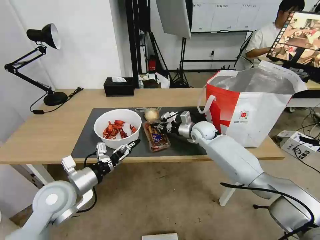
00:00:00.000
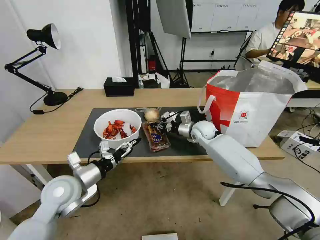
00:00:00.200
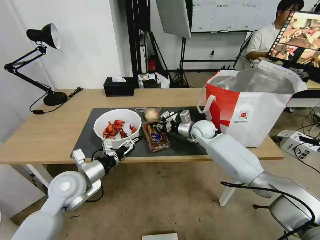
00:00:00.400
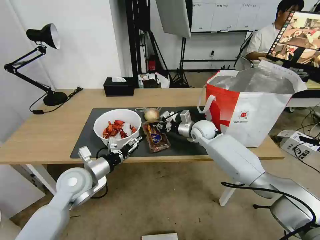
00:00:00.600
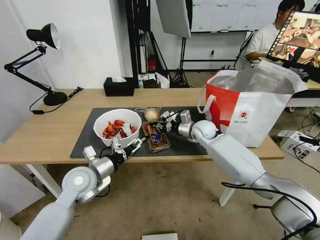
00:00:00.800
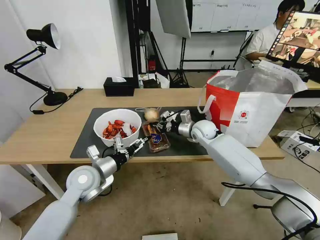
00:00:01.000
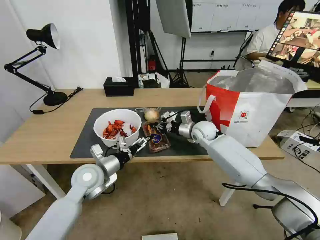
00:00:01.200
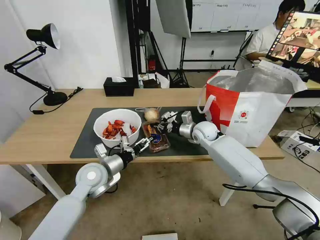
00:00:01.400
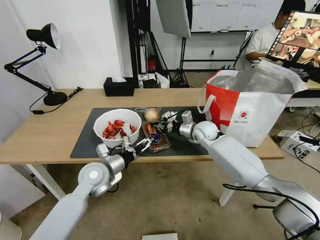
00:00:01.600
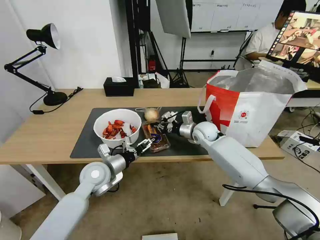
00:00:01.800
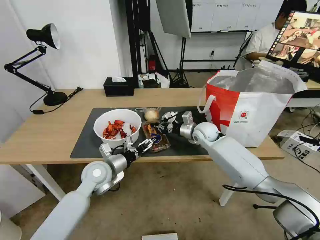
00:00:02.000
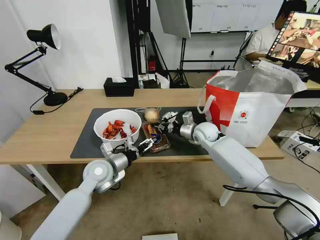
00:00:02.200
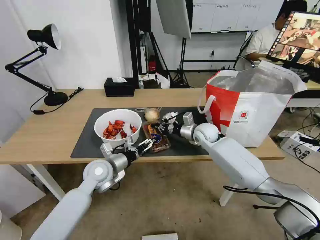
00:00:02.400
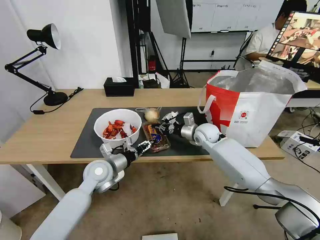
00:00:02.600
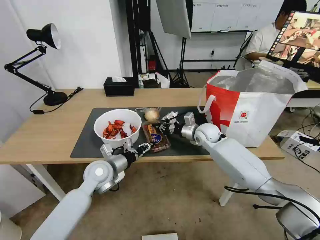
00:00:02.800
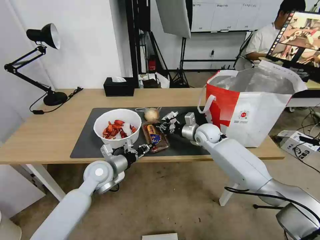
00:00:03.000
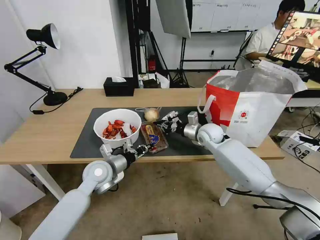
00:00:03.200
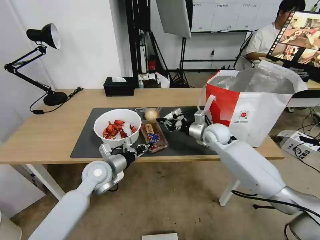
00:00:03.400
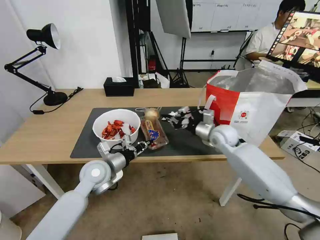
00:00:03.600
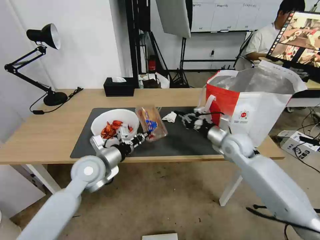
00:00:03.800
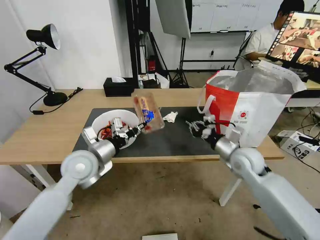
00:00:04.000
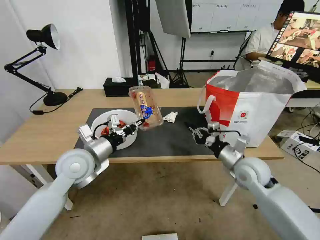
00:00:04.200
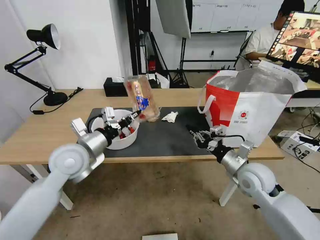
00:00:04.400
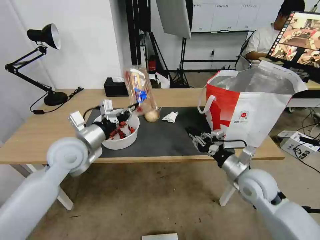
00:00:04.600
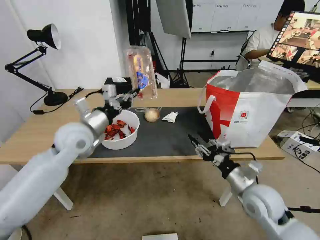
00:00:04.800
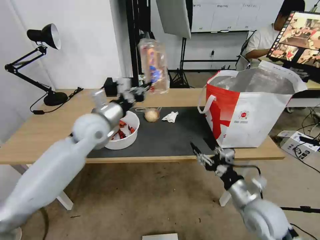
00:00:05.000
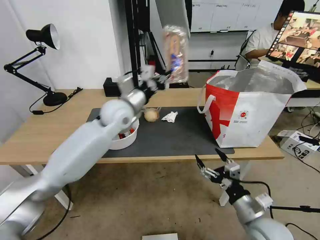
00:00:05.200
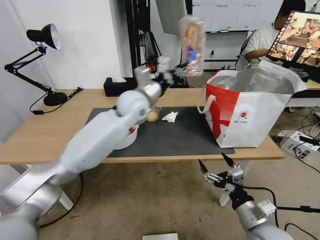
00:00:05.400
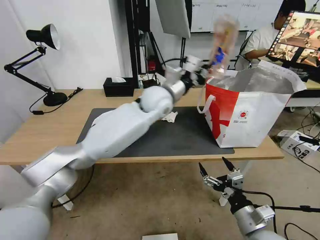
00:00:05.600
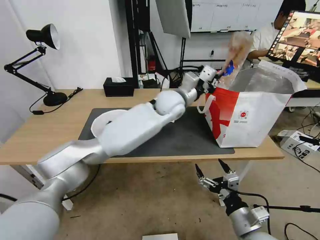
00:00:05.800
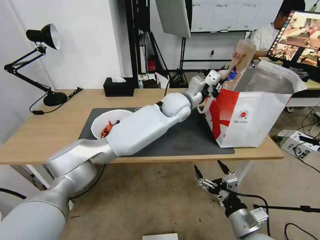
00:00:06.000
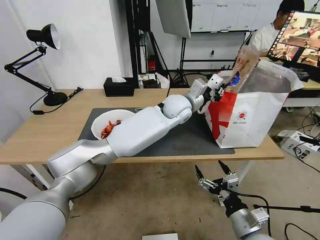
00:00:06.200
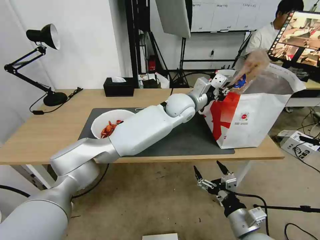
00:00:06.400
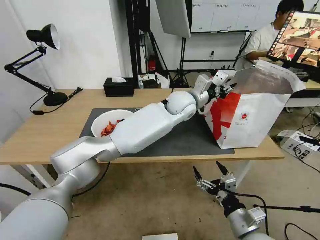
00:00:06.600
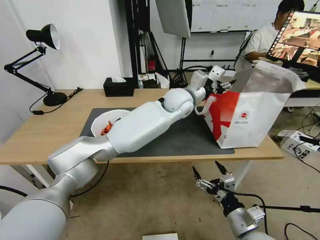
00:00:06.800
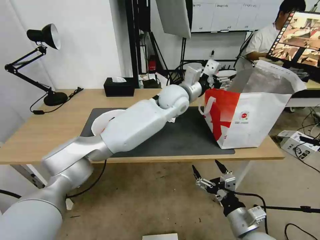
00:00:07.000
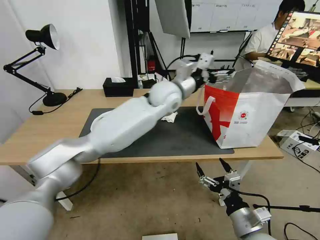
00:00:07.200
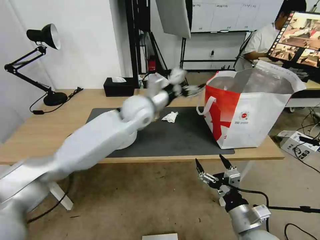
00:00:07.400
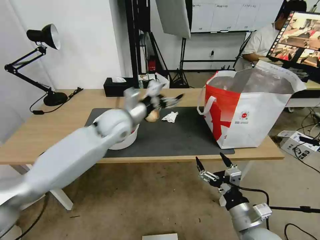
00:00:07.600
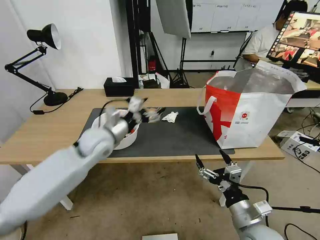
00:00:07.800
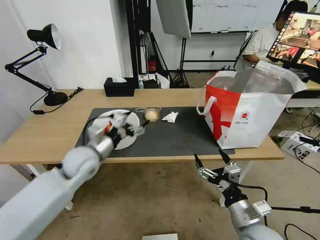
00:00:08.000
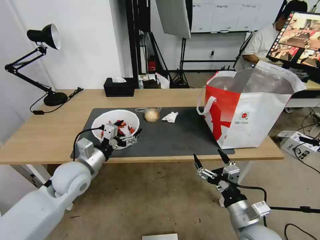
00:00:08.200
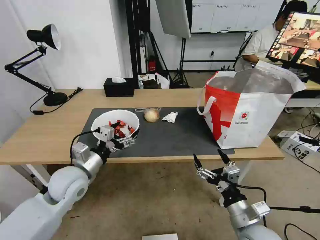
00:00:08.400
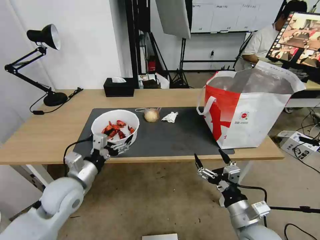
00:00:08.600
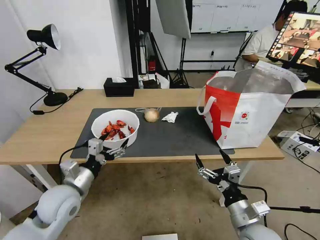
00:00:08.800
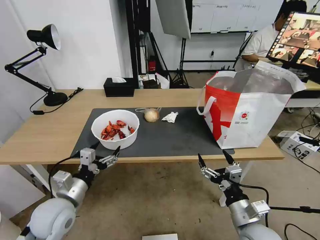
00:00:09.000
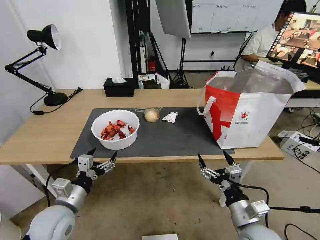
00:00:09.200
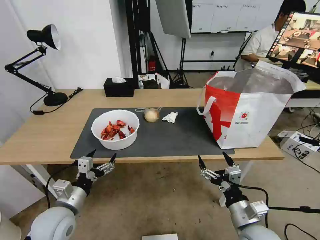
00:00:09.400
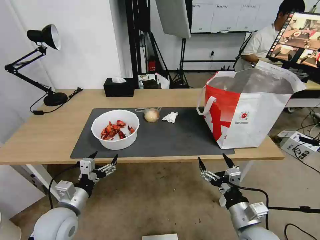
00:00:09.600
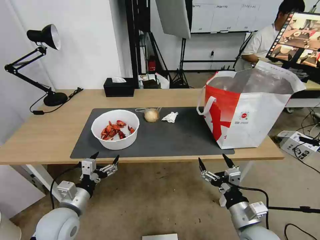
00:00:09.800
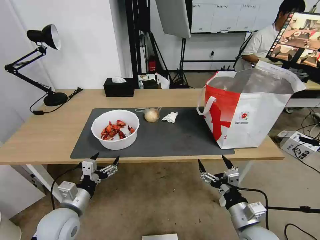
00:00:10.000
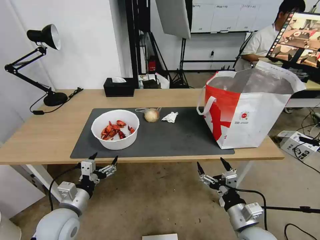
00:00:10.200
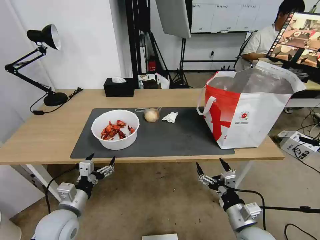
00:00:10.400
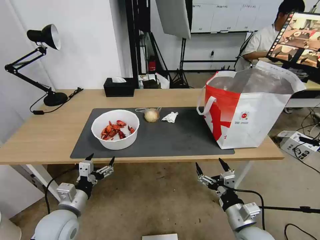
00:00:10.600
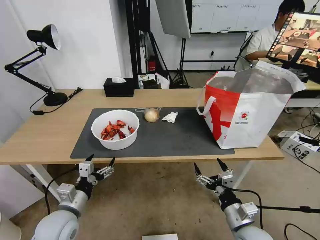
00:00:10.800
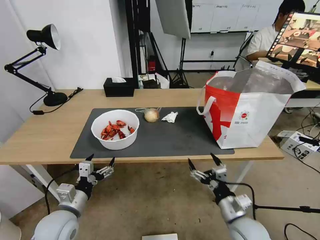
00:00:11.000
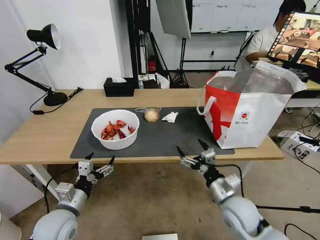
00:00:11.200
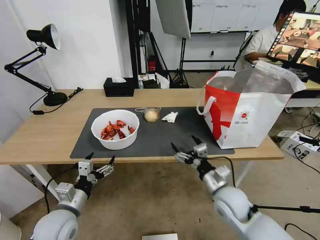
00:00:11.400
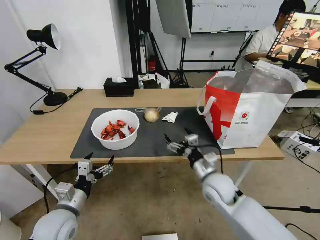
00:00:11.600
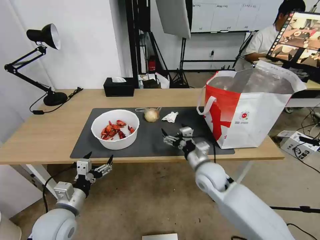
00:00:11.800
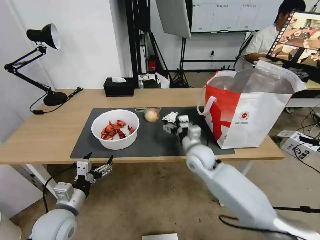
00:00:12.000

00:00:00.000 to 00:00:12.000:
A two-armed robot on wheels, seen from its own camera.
Task of the whole recording: Pick up the trash from the table and place it into the takeout bag.
00:00:00.000 to 00:00:01.600: The left gripper moves forward and to the right, roughly 10 cm.
00:00:01.600 to 00:00:03.000: The left gripper closes.
00:00:03.000 to 00:00:04.400: The left gripper goes some 10 cm upward. The right gripper goes roughly 20 cm backward and to the right.
00:00:04.400 to 00:00:06.000: The right gripper is displaced backward by approximately 20 cm, and opens; the left gripper goes some 35 cm to the right and forward.
00:00:06.000 to 00:00:07.600: The left gripper goes about 20 cm to the left, and opens its fingers.
00:00:07.600 to 00:00:09.000: The left gripper moves backward, to the left and downward, roughly 30 cm.
00:00:09.000 to 00:00:10.400: The grippers move only a little.
00:00:10.400 to 00:00:12.000: The right gripper travels forward and to the left by approximately 25 cm.

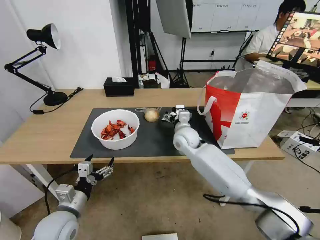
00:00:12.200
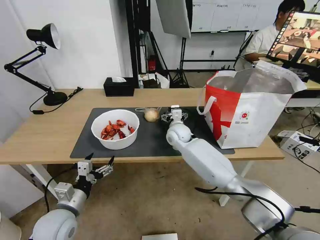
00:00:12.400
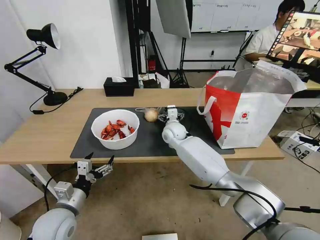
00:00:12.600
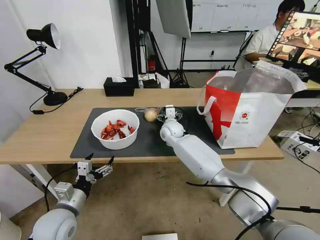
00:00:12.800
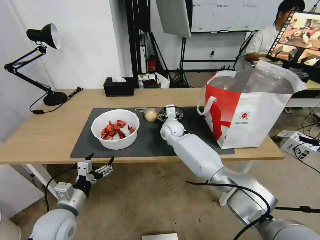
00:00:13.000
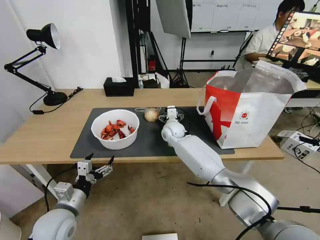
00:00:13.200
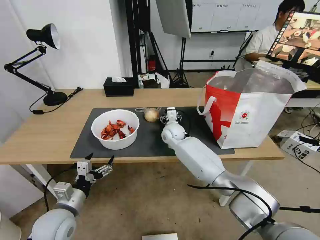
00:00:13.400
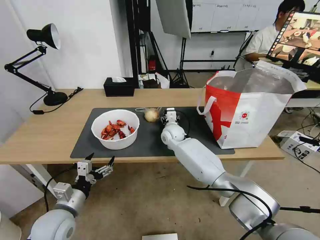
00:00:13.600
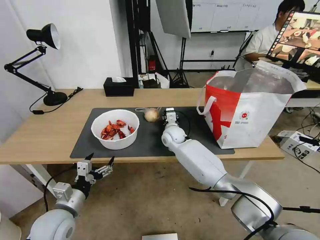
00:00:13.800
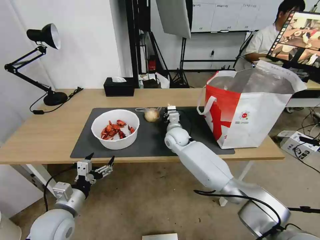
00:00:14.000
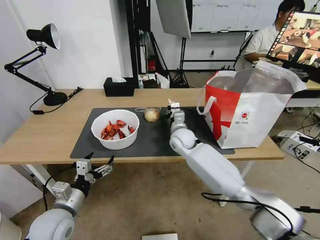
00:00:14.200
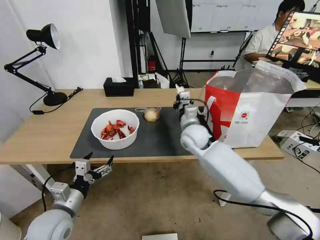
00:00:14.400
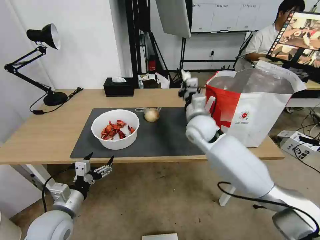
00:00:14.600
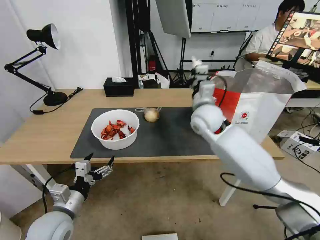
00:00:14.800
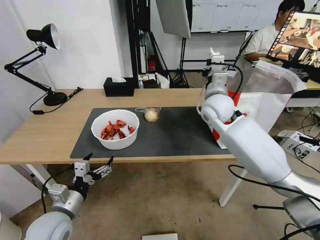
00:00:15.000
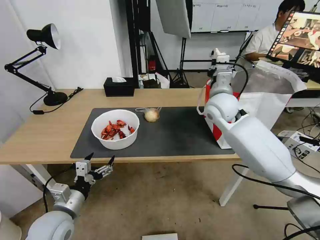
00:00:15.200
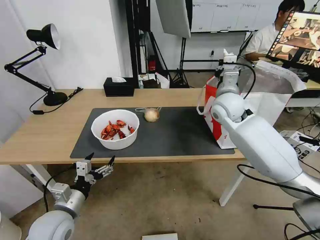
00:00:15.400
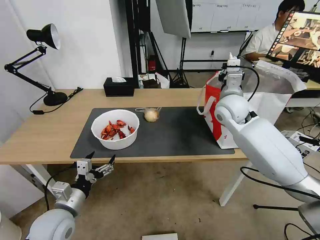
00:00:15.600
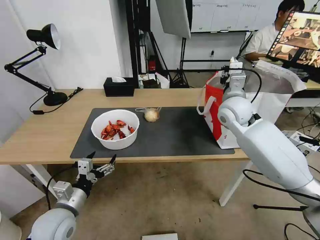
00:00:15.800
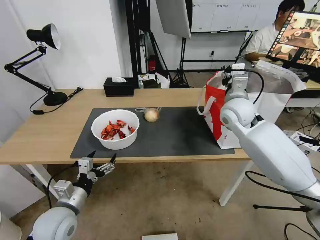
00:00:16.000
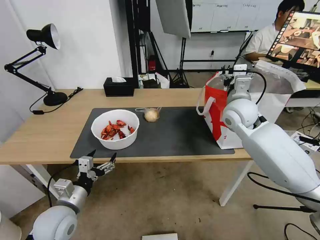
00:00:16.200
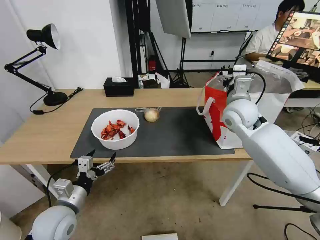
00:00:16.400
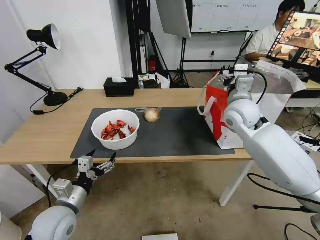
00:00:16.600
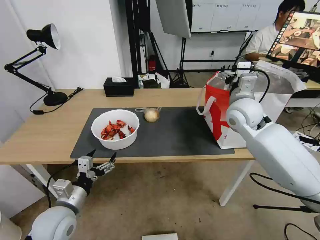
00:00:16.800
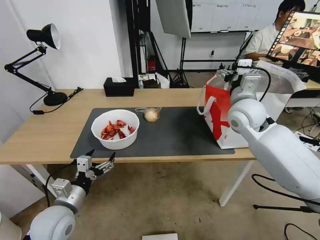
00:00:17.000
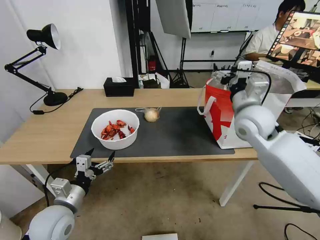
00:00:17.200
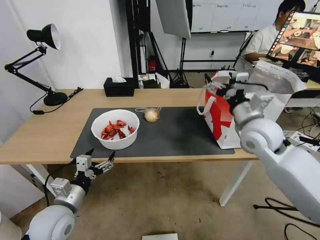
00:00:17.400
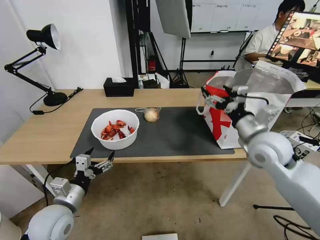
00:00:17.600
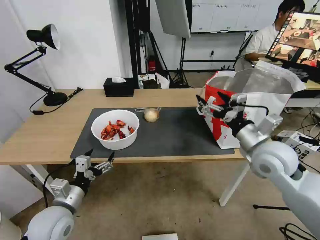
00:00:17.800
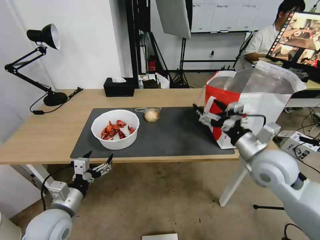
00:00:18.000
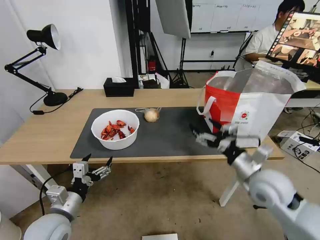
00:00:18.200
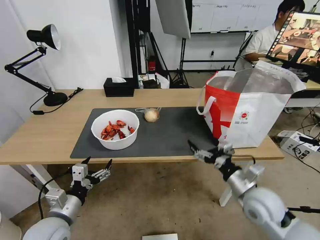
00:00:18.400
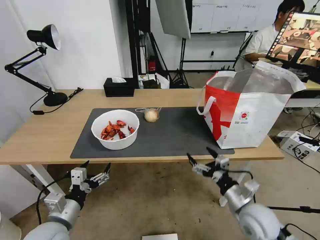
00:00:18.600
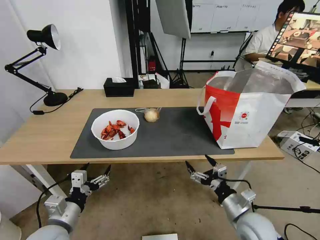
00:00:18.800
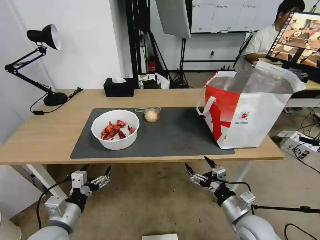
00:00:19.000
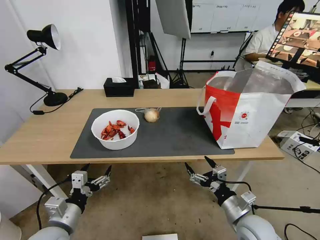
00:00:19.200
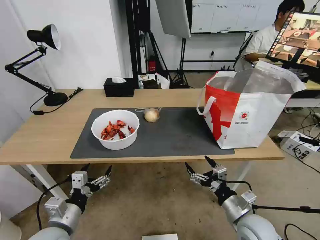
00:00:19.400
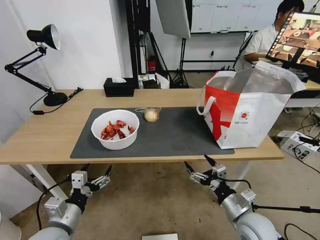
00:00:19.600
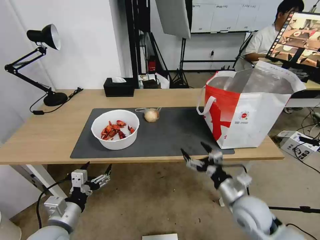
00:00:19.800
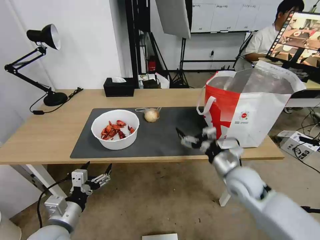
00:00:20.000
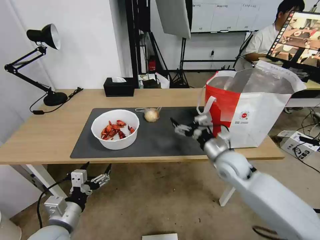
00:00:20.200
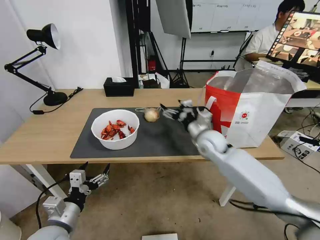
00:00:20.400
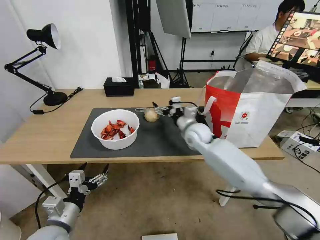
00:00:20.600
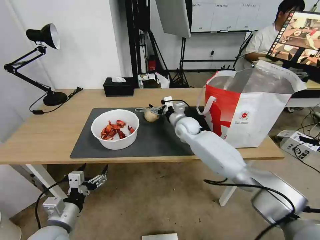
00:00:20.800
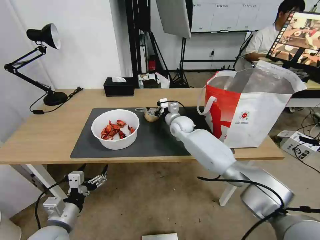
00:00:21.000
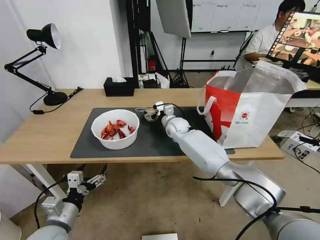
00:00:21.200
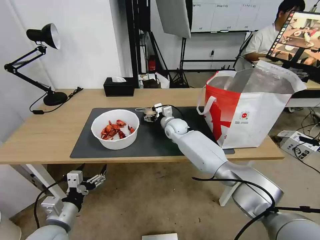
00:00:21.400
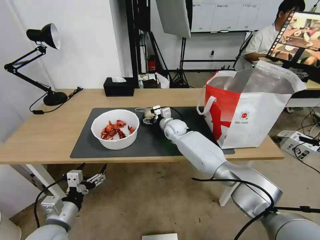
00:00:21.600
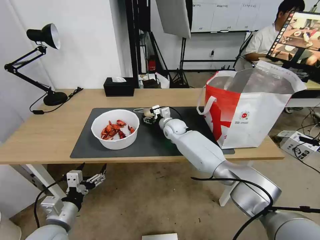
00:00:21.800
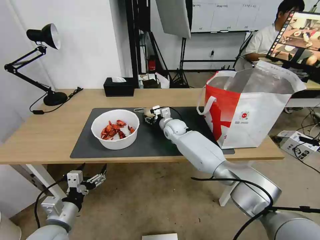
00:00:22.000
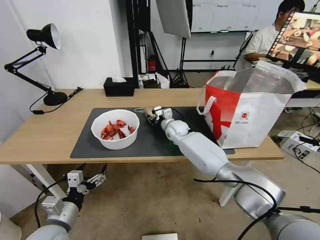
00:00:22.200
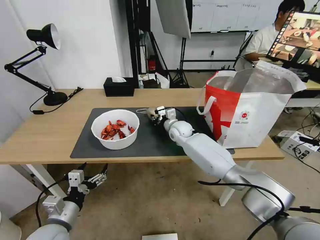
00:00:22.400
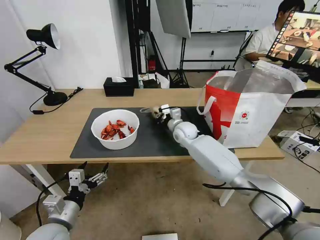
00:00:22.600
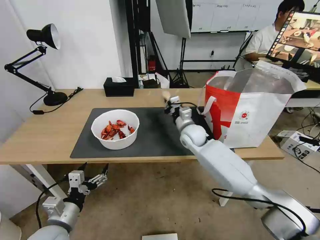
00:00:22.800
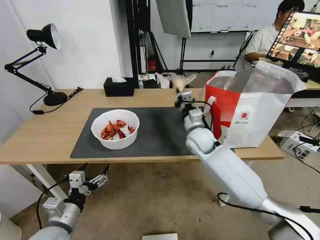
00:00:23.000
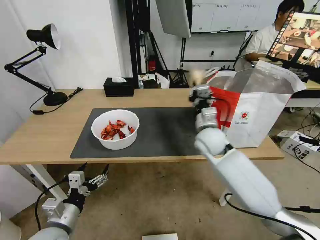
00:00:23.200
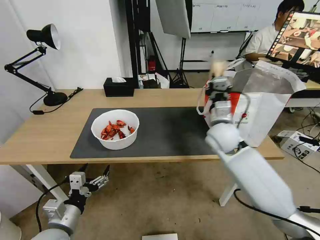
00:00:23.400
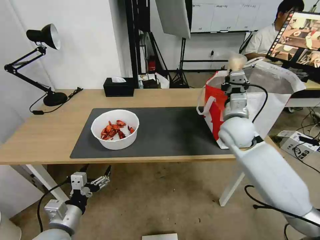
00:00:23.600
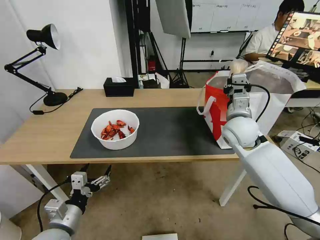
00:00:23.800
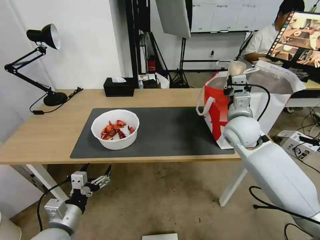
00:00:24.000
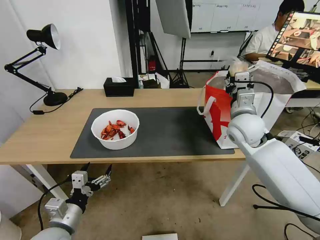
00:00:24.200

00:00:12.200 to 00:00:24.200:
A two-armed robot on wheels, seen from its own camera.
Task of the whole recording: Pick up the trash from the table and place it into the takeout bag.
00:00:12.200 to 00:00:13.800: The right gripper shifts about 10 cm forward and to the left, and closes up.
00:00:13.800 to 00:00:15.200: The right gripper is displaced upward and to the right by some 25 cm, and closes up.
00:00:15.200 to 00:00:16.600: The right gripper heads to the right, covering approximately 5 cm, and opens.
00:00:16.600 to 00:00:18.200: The right gripper heads backward and downward, covering approximately 20 cm.
00:00:18.200 to 00:00:19.800: The right gripper heads downward, covering approximately 10 cm.
00:00:19.800 to 00:00:21.200: The right gripper moves forward and to the left, approximately 35 cm.
00:00:21.200 to 00:00:22.600: The right gripper closes.
00:00:22.600 to 00:00:24.200: The right gripper travels to the right, upward and backward by approximately 25 cm, and opens its fingers.
